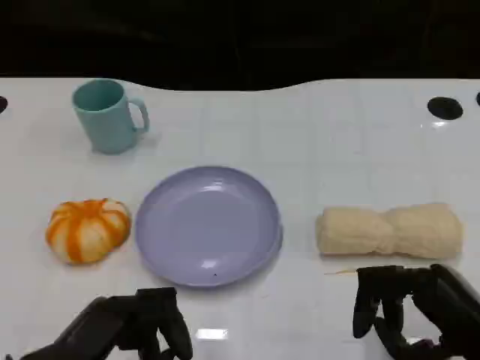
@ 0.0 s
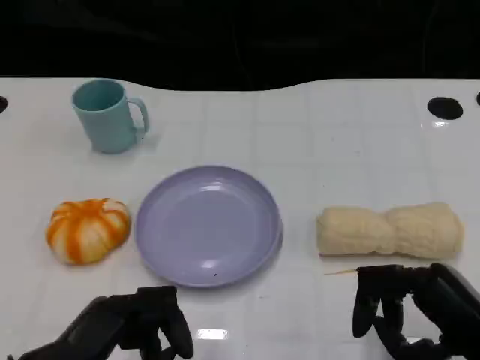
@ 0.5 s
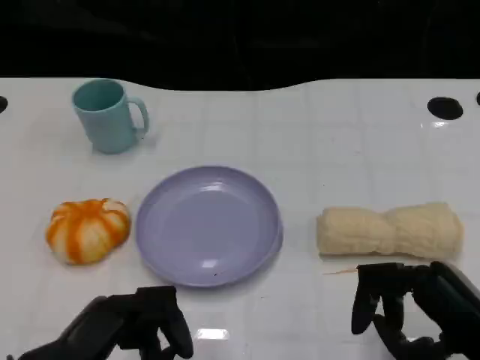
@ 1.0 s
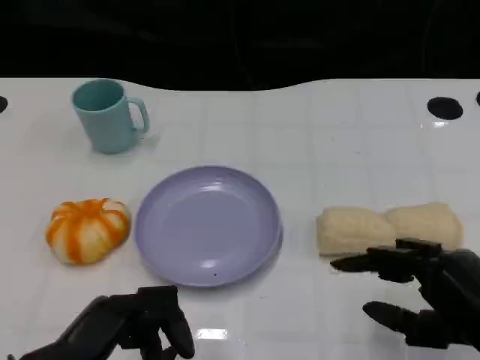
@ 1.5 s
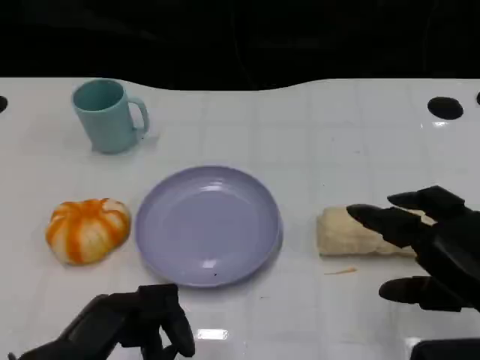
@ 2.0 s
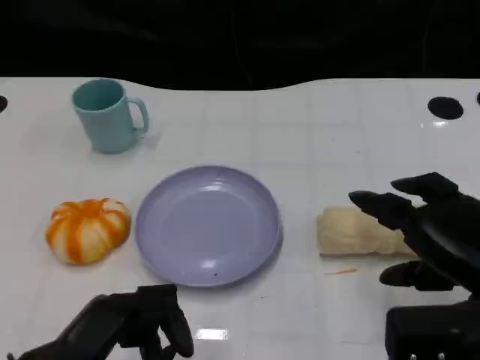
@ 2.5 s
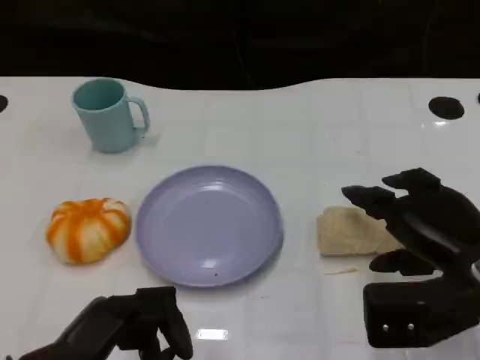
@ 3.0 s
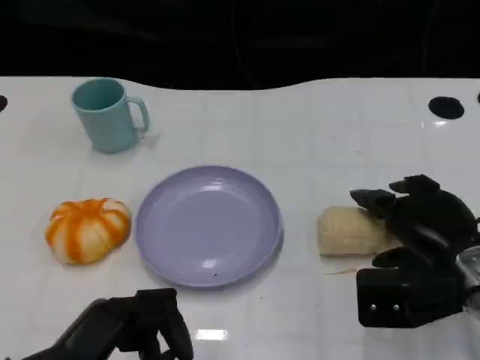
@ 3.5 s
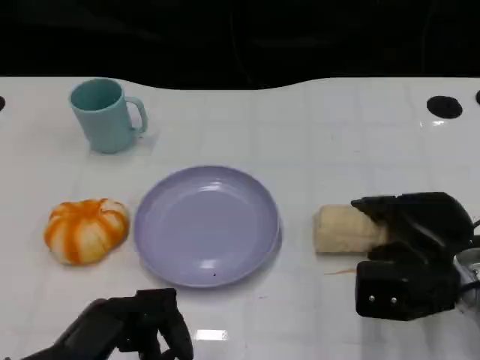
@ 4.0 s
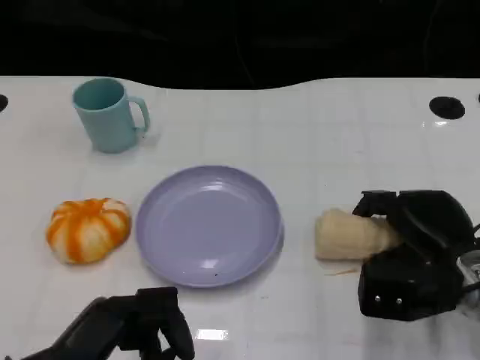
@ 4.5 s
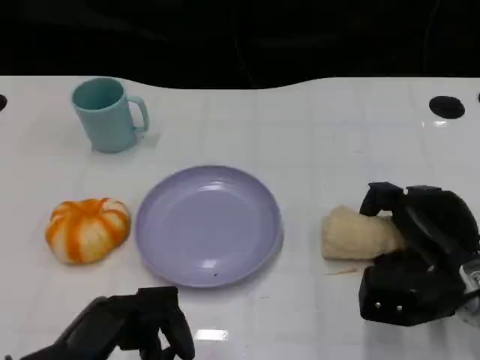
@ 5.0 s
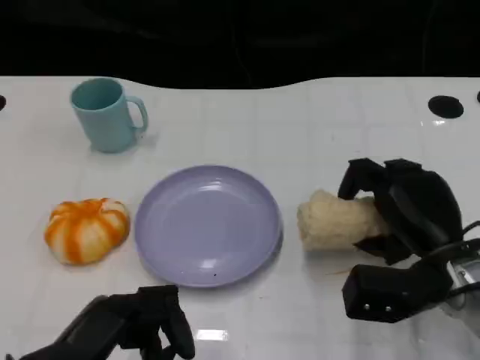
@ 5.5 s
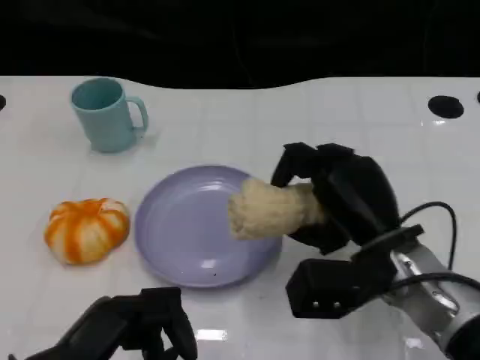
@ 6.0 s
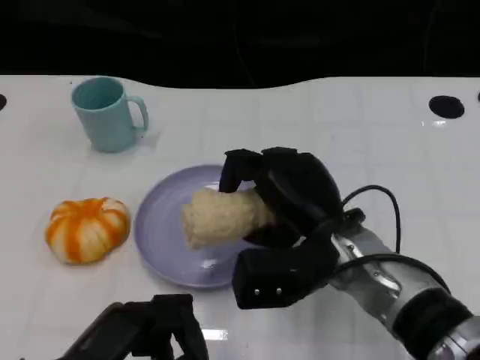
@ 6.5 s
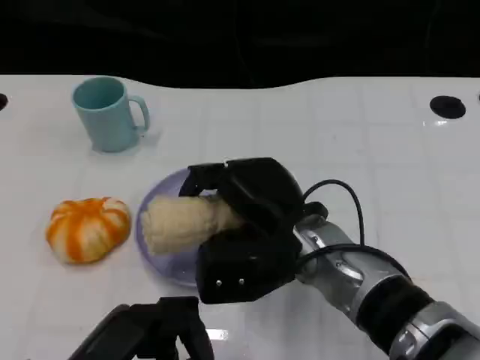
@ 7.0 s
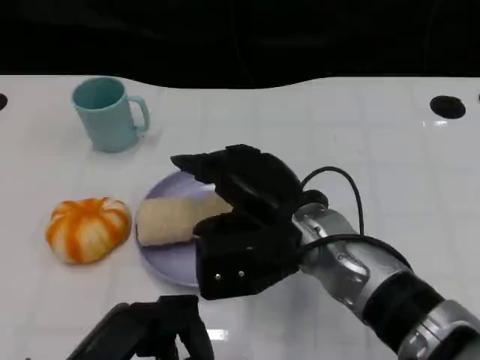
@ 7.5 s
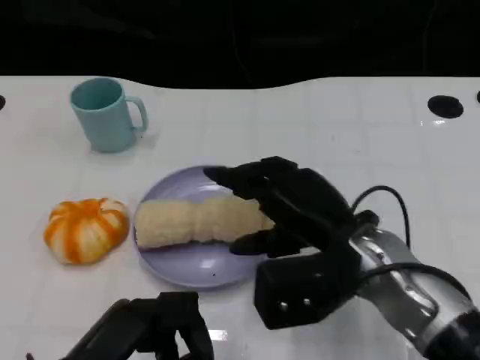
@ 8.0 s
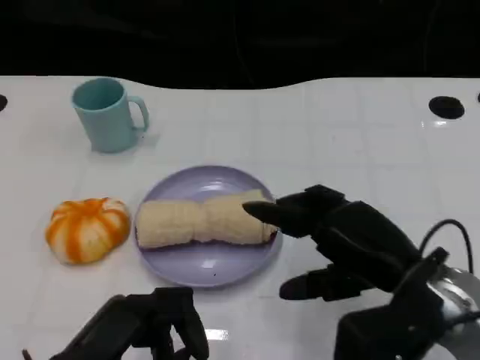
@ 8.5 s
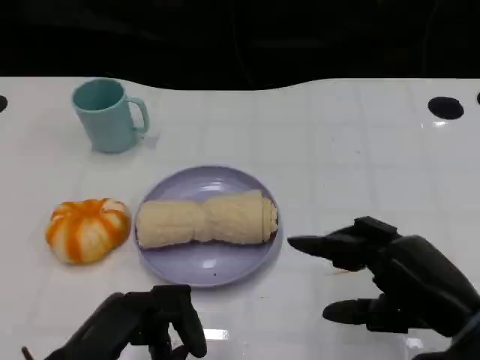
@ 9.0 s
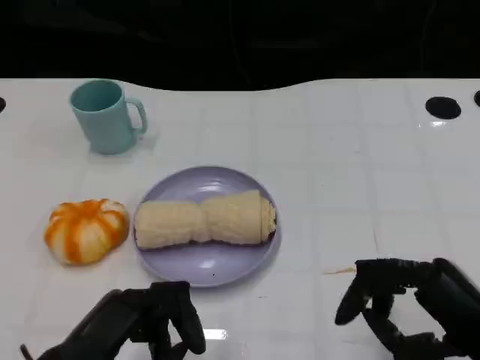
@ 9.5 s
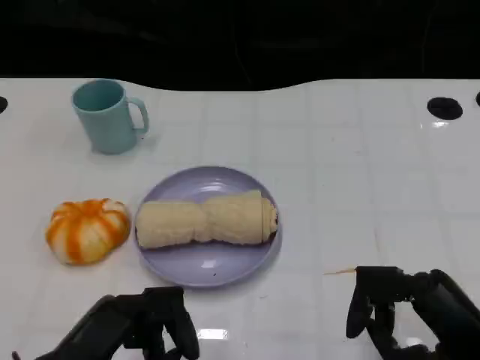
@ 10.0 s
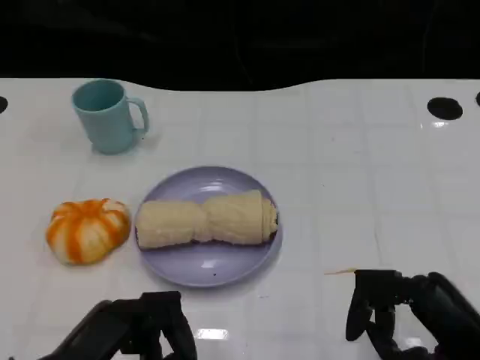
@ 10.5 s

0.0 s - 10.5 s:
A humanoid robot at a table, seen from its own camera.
Task of the whole recording: Grasp the towel on the left side of the plate with the left hand and place it into the plate.
2.0 s - 4.0 s: The right hand moves forward and downward, about 10 cm.
4.0 s - 6.5 s: The right hand goes roughly 15 cm to the left.
6.5 s - 8.5 s: The right hand is displaced to the right and backward by some 10 cm.
8.5 s - 10.5 s: The right hand is displaced backward and to the right by approximately 10 cm.

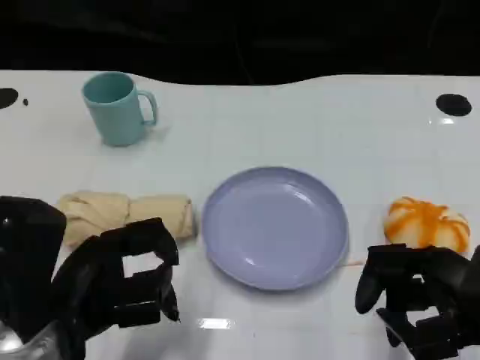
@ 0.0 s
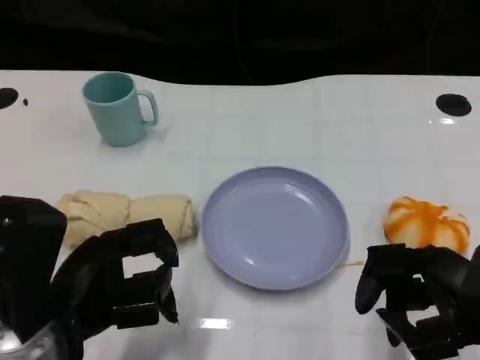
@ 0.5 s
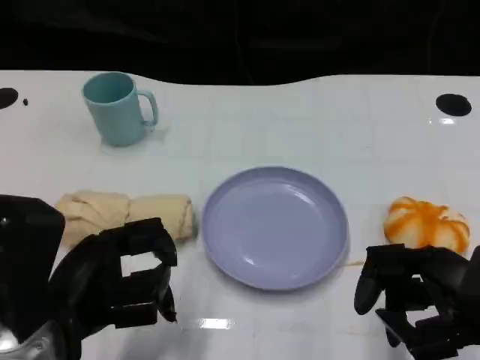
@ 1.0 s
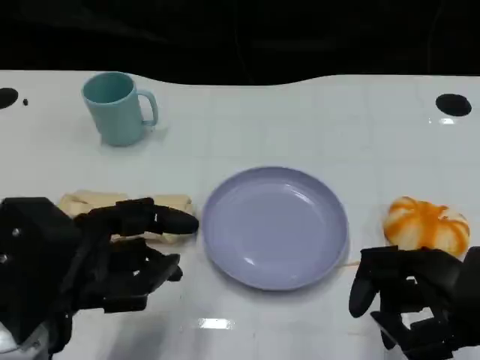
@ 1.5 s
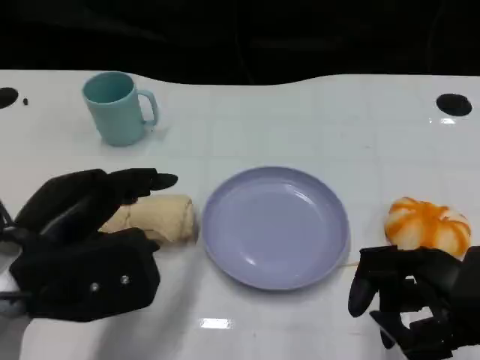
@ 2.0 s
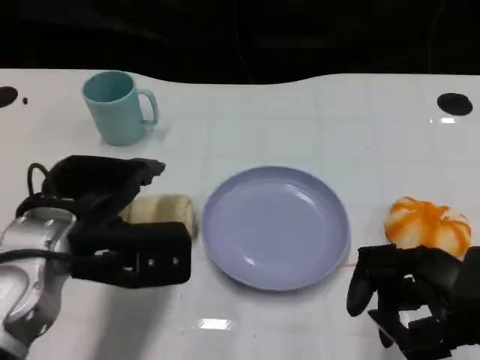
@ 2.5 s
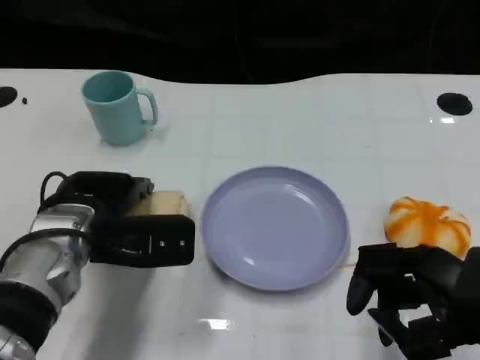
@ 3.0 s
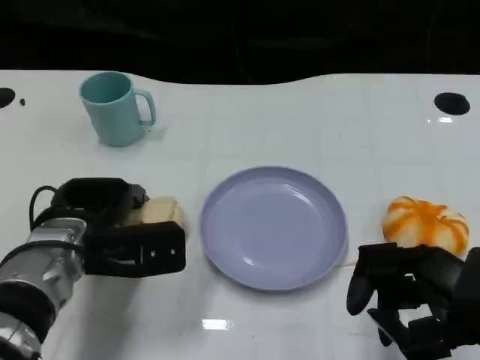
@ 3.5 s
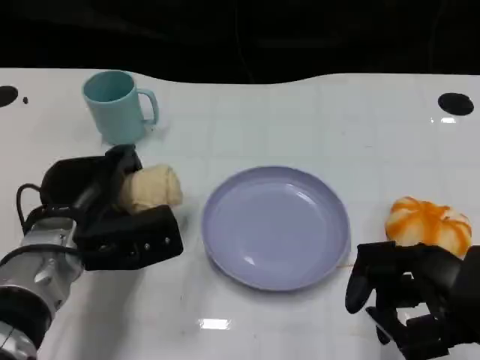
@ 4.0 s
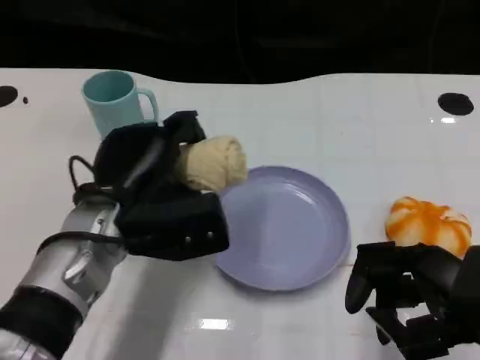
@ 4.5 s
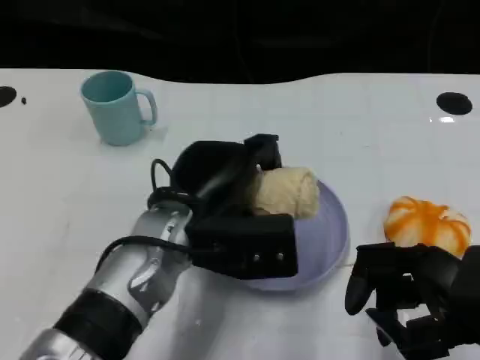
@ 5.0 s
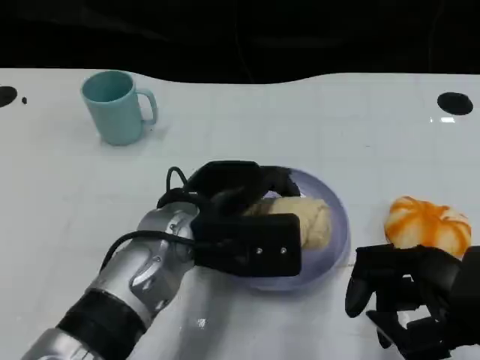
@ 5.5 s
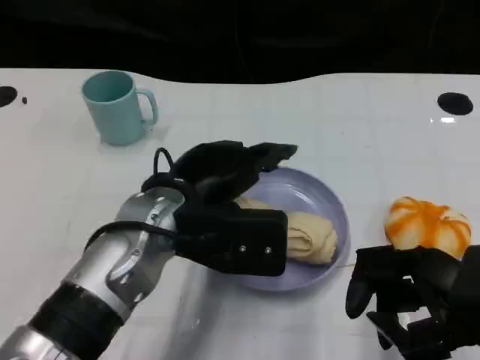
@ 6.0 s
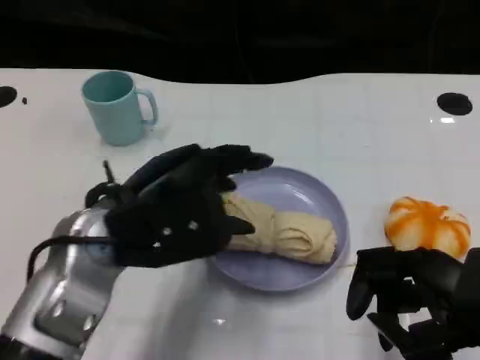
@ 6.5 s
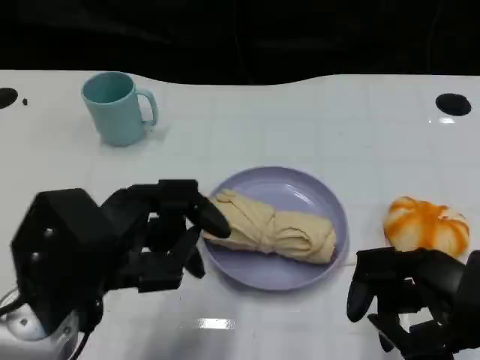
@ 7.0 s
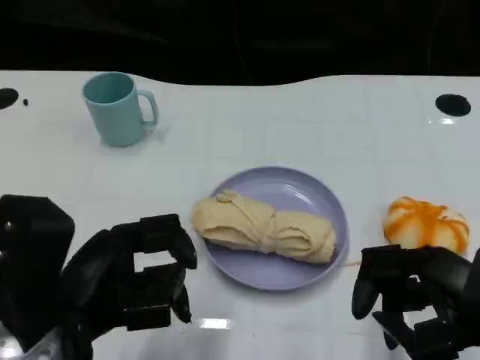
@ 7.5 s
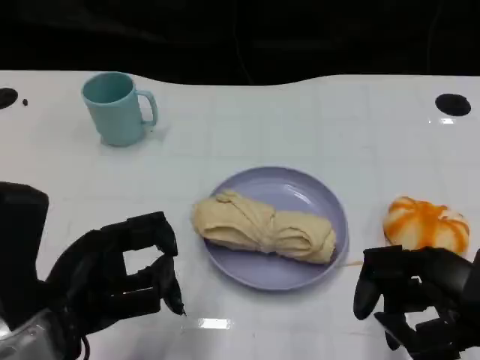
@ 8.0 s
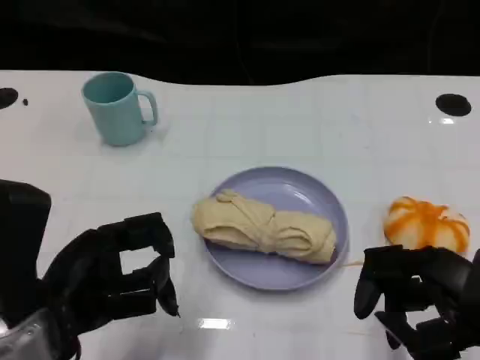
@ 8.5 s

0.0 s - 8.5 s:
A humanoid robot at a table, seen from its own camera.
Task of the whole recording: Grasp the towel on the left side of the plate with the left hand and place it into the plate.
0.0 s - 2.0 s: The left hand ends up about 5 cm from where it was.
2.0 s - 4.0 s: The left hand heads downward and forward, covering some 10 cm.
4.0 s - 6.5 s: The left hand goes some 10 cm upward.
6.5 s - 8.5 s: The left hand travels backward and to the left by roughly 10 cm.

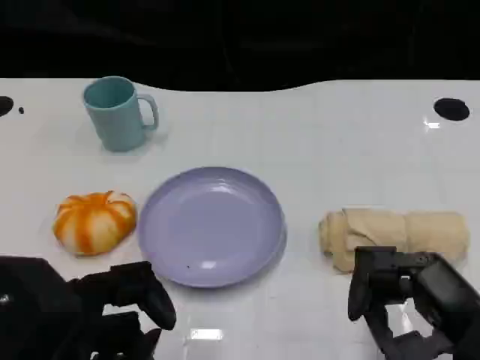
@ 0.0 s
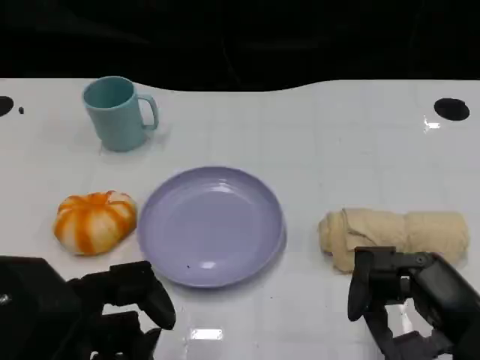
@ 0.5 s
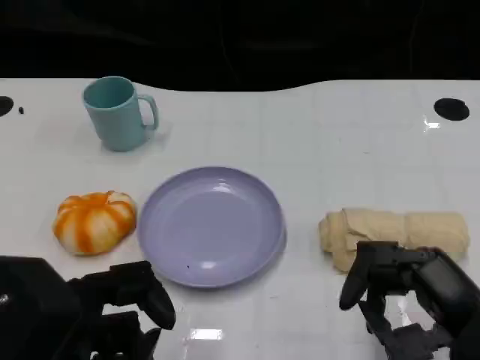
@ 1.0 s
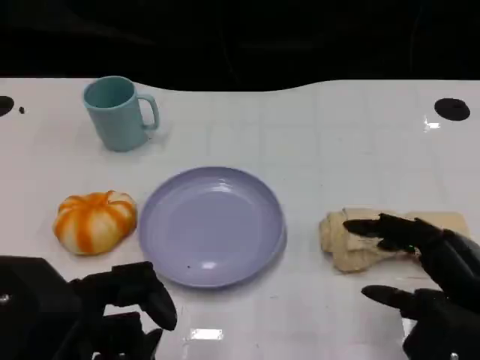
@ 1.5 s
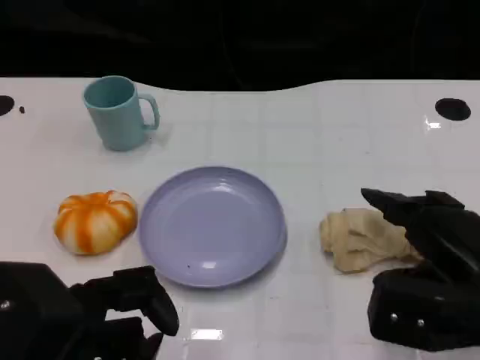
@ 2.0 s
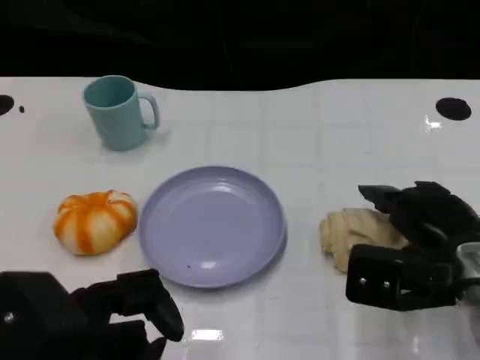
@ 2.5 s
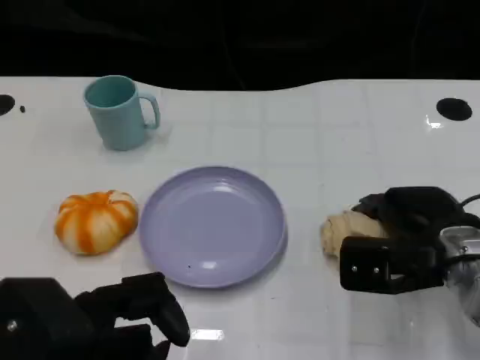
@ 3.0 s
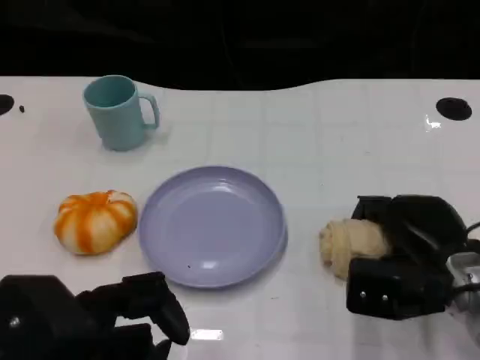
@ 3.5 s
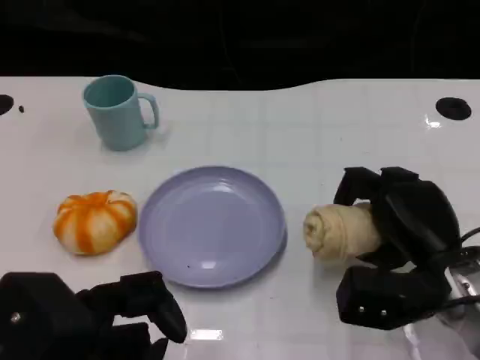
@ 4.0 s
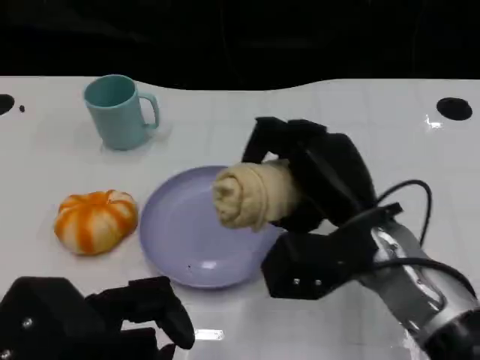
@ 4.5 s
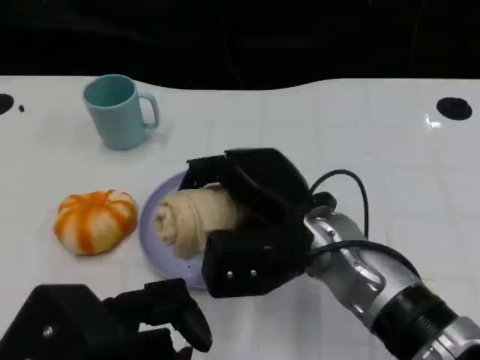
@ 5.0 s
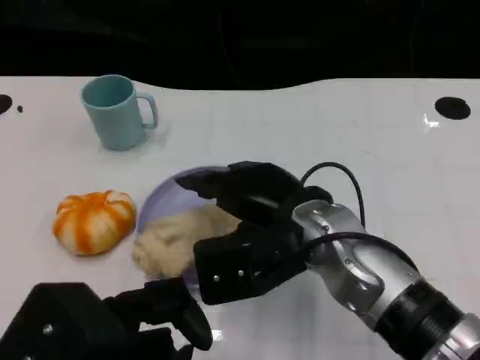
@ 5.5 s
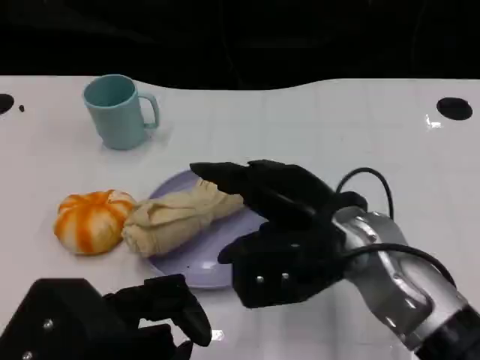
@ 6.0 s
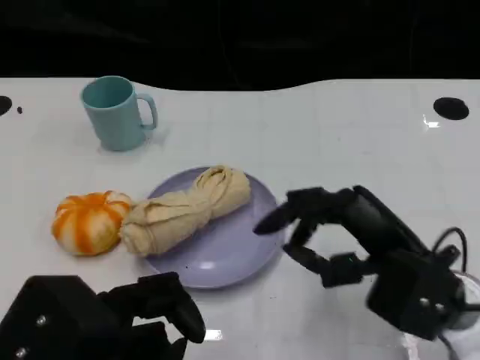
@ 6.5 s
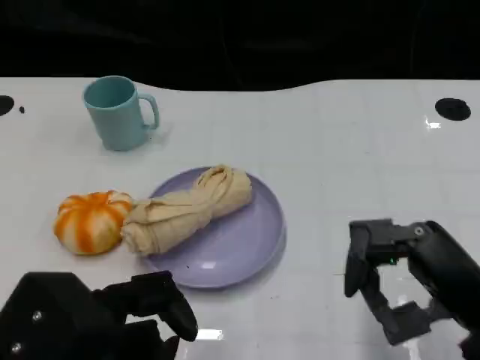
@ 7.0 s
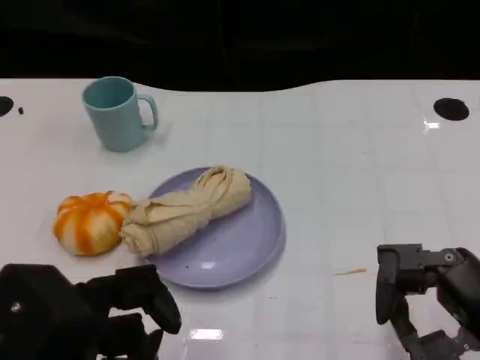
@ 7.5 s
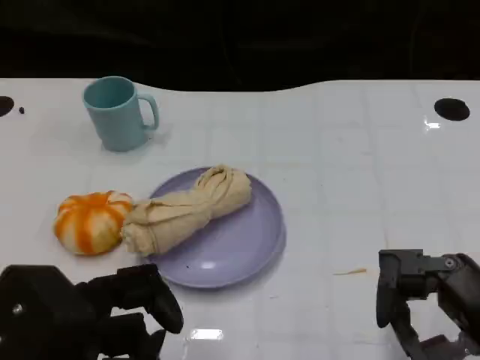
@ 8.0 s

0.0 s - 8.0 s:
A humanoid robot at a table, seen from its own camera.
Task of the whole recording: Grasp the towel on the left side of the plate with the left hand and place it into the plate.
0.0 s - 2.0 s: The right hand goes about 5 cm forward.
2.0 s - 4.0 s: The right hand changes place by about 5 cm.
4.0 s - 6.0 s: The right hand shifts some 10 cm to the left and upward.
6.0 s - 8.0 s: The right hand is displaced to the right and backward by roughly 20 cm.
